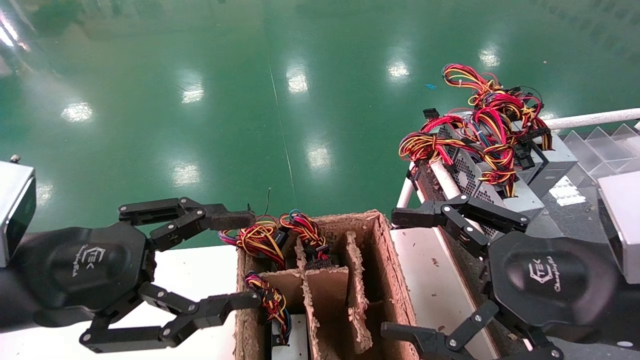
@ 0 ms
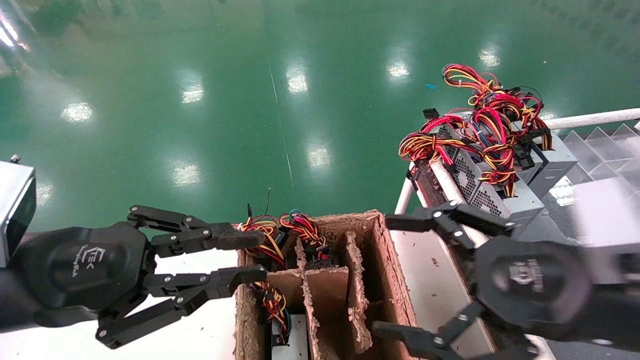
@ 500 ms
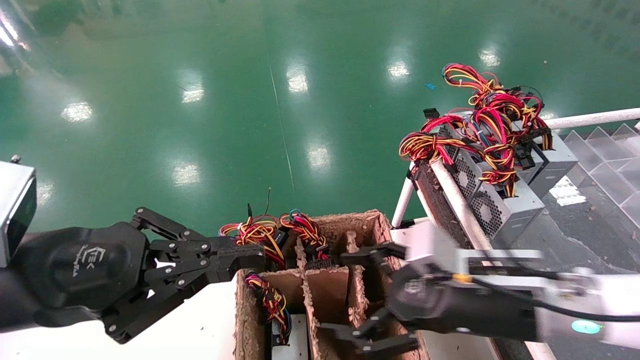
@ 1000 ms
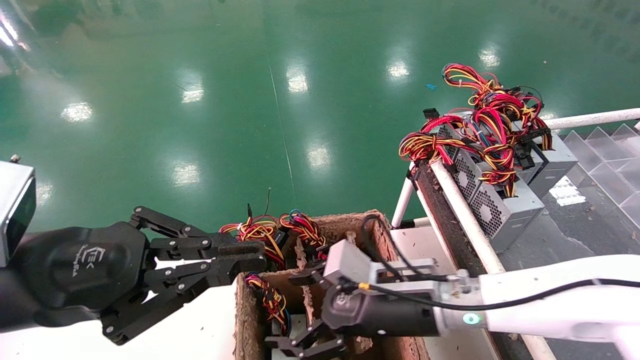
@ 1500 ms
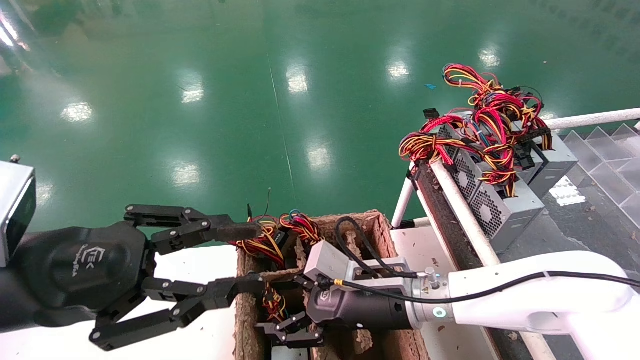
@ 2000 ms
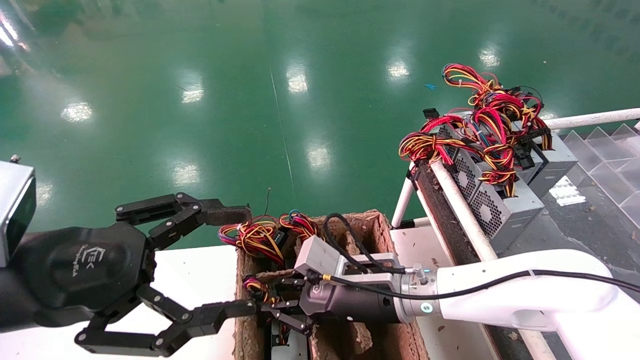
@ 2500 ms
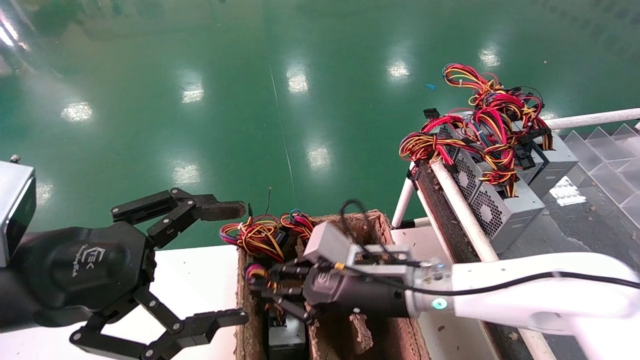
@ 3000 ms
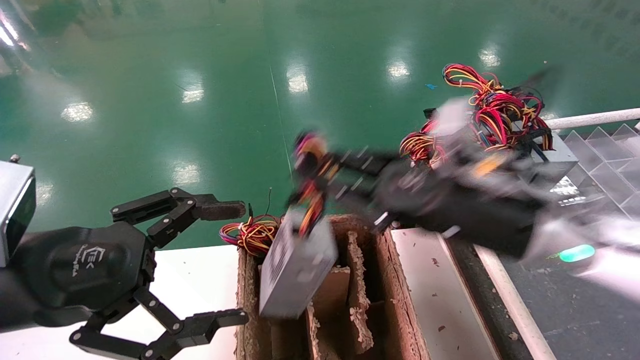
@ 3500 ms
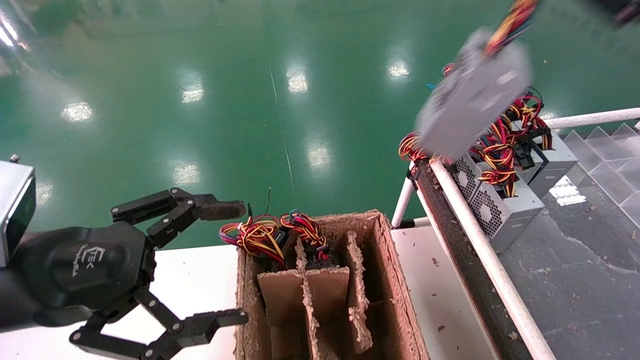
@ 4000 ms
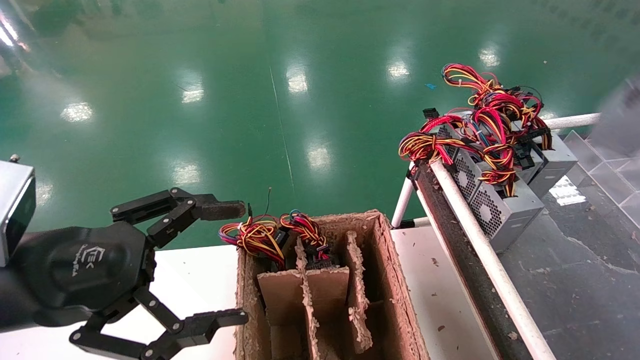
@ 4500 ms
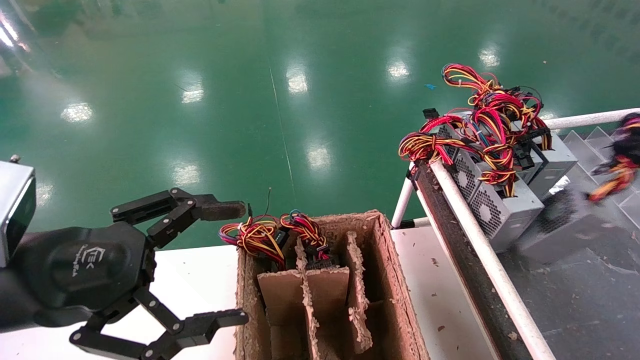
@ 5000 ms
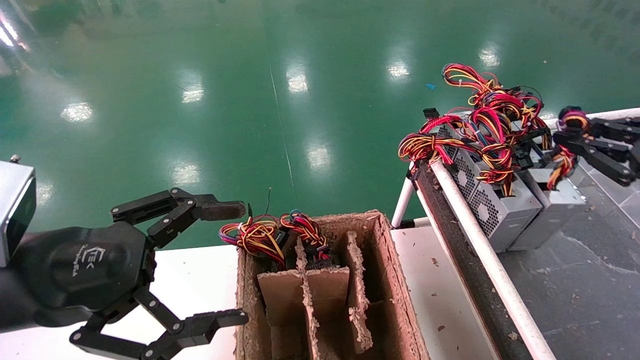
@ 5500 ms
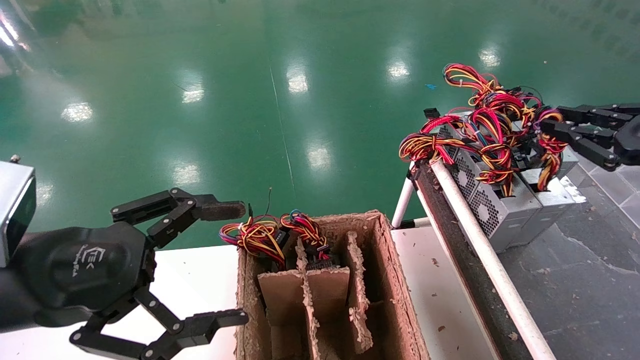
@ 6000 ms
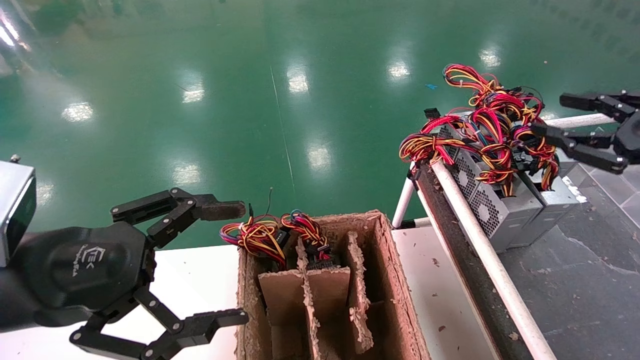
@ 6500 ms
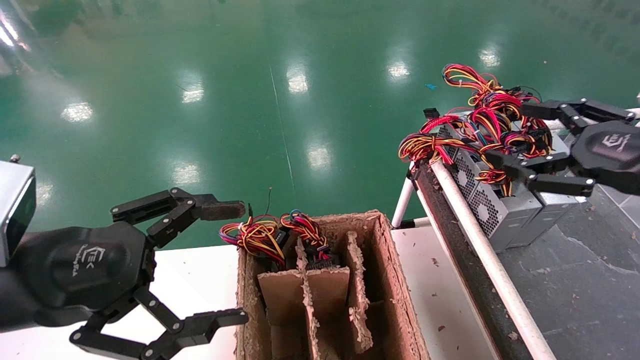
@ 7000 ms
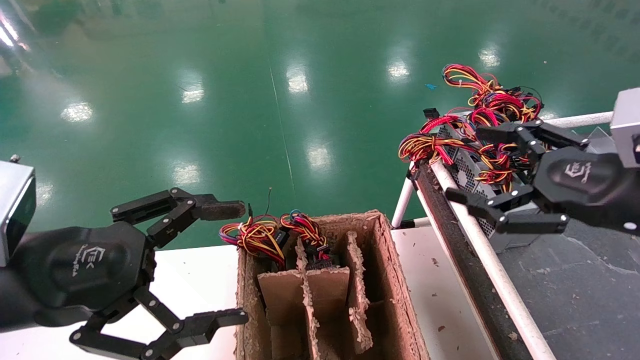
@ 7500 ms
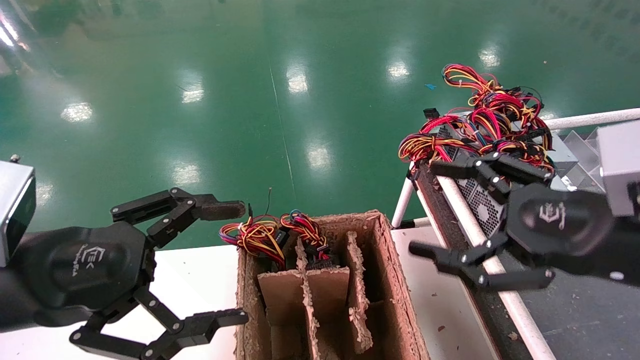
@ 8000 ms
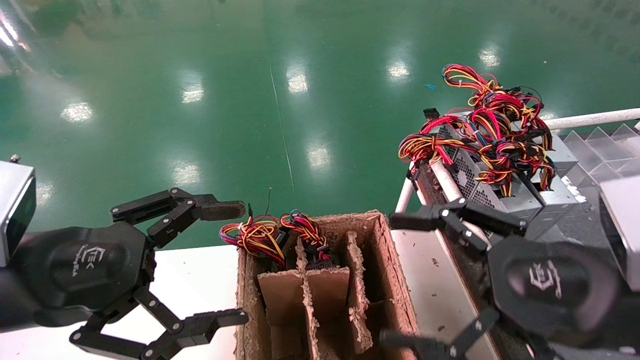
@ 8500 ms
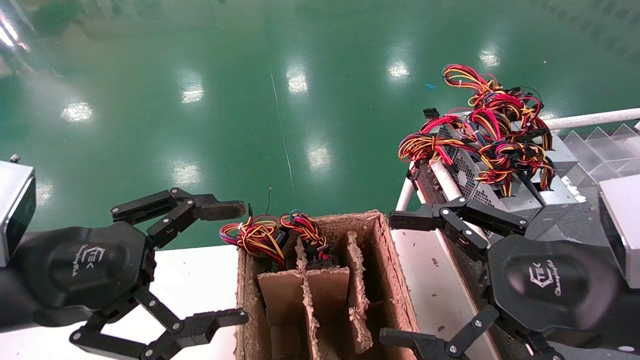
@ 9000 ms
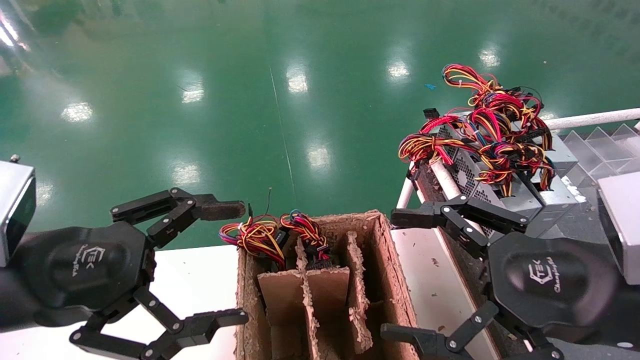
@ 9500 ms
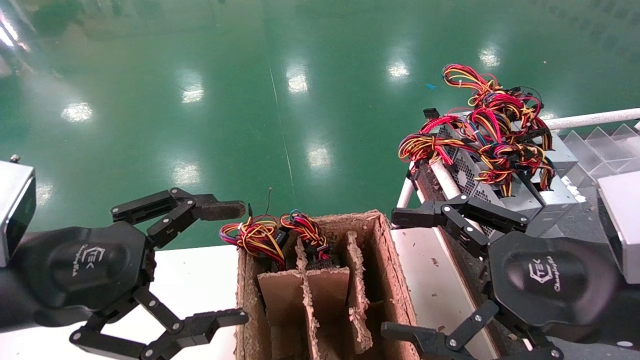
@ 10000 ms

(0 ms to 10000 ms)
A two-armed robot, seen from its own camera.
Step, 1000 ms - 2500 ms: Grab and lift the power supply from the large box.
Step, 3000 ms - 6500 ms: Place the power supply on the operating table.
0 ms - 2000 ms: The right gripper moves to the left, forward and downward, approximately 25 cm, while the left gripper closes its fingers.
2000 ms - 4000 ms: The left gripper opens, while the right gripper is displaced upward, to the right and backward by about 40 cm, and closes up.
4000 ms - 6000 ms: The right gripper moves to the right, downward and forward, approximately 15 cm.
6000 ms - 8000 ms: The right gripper moves to the left and backward, roughly 15 cm, and opens its fingers.
8000 ms - 10000 ms: The grippers stay close to where they were, moving slightly.

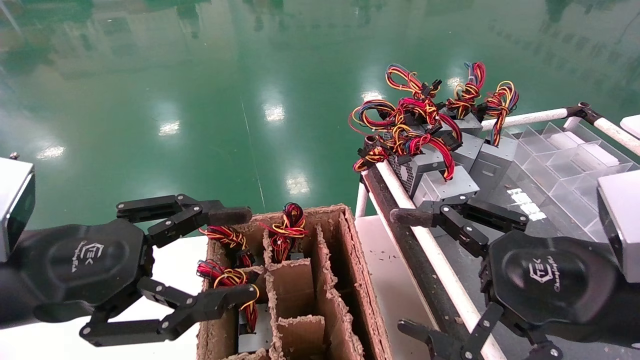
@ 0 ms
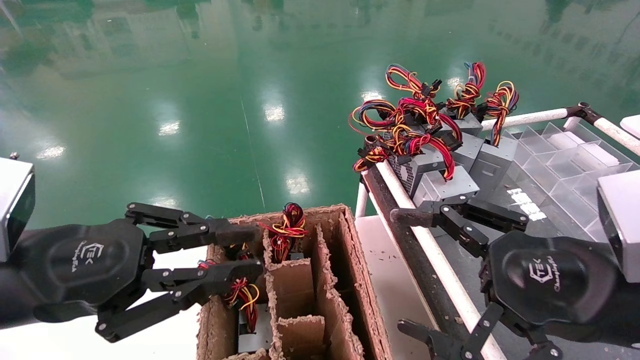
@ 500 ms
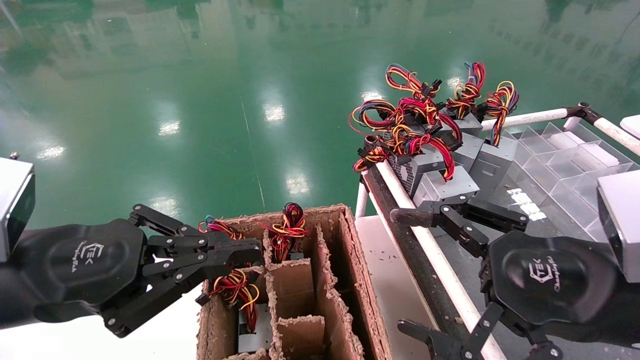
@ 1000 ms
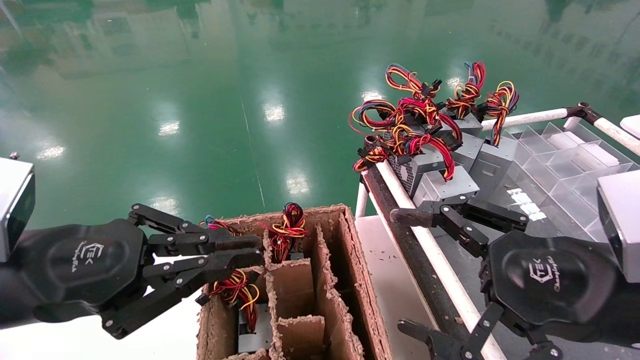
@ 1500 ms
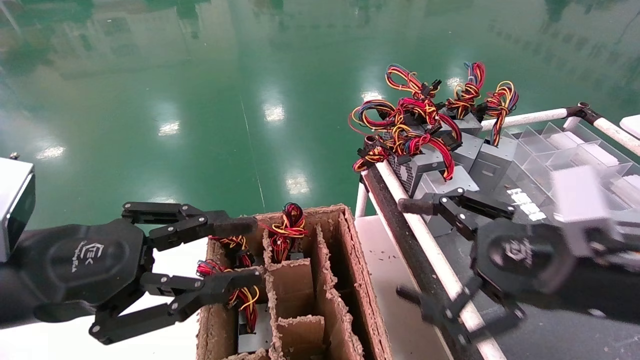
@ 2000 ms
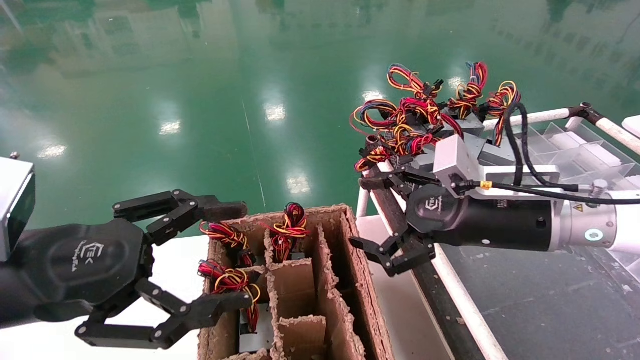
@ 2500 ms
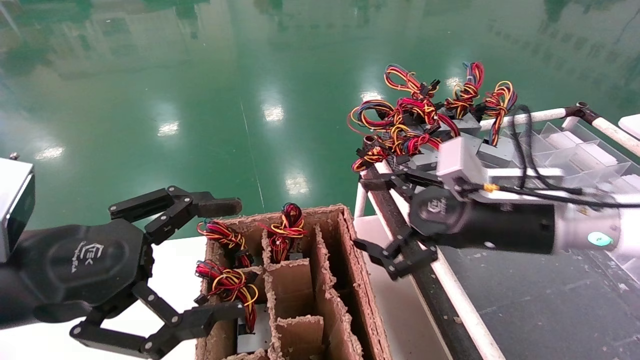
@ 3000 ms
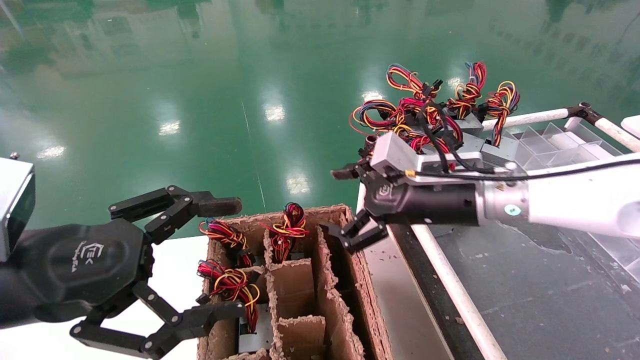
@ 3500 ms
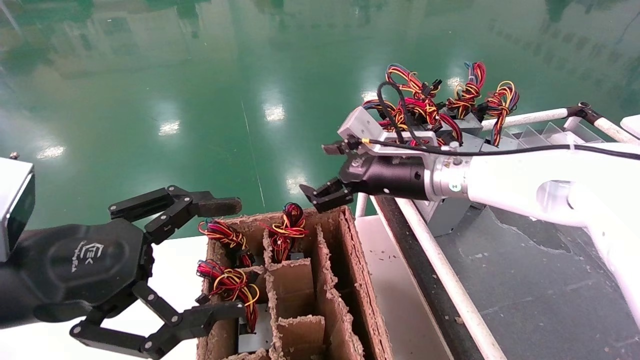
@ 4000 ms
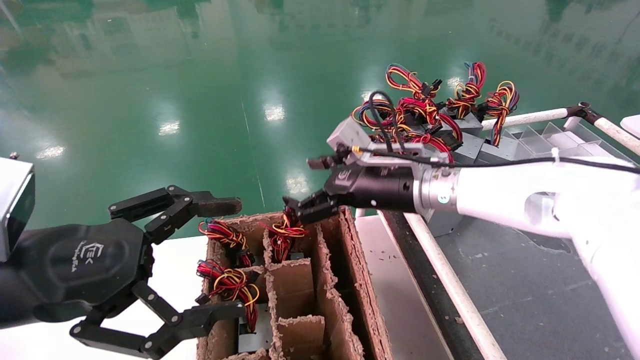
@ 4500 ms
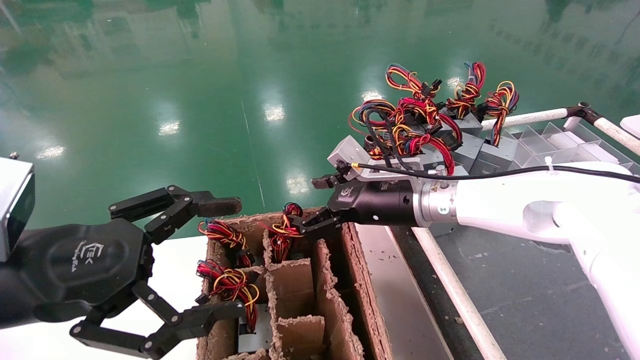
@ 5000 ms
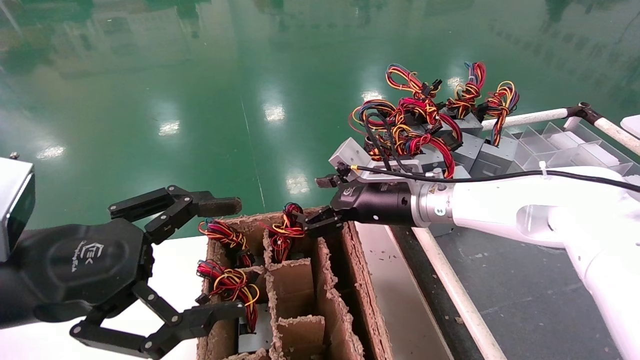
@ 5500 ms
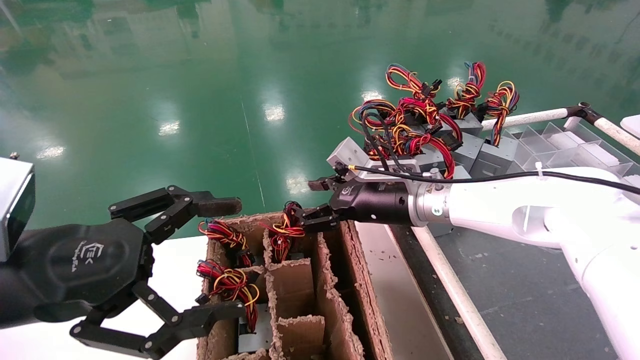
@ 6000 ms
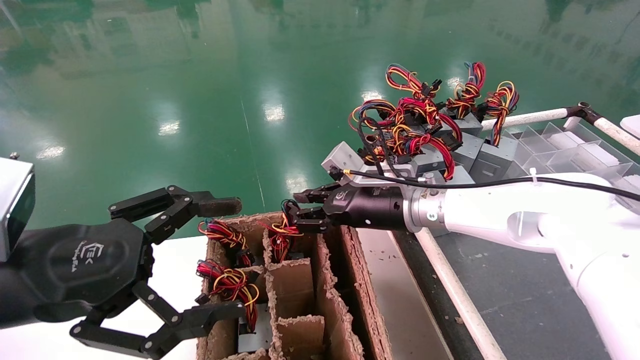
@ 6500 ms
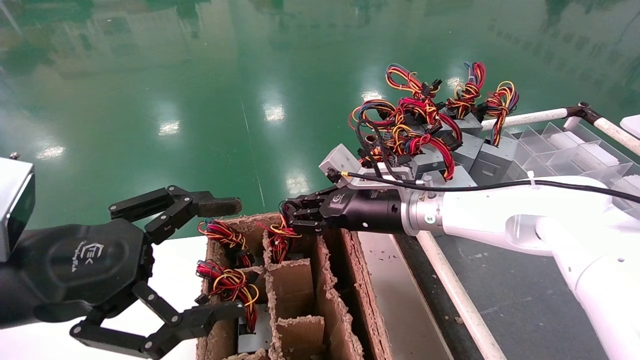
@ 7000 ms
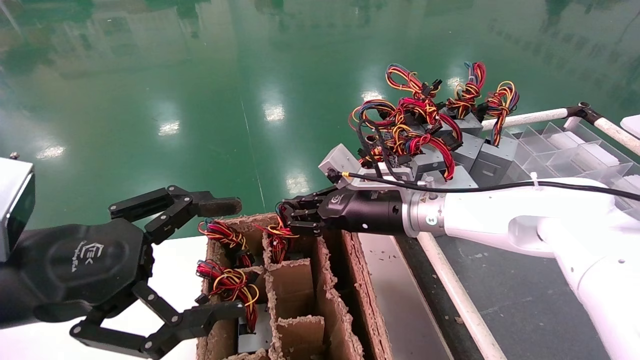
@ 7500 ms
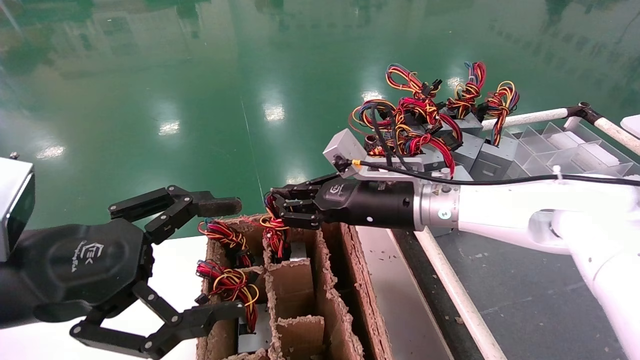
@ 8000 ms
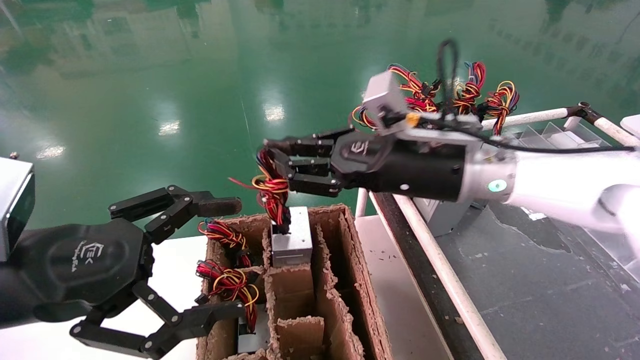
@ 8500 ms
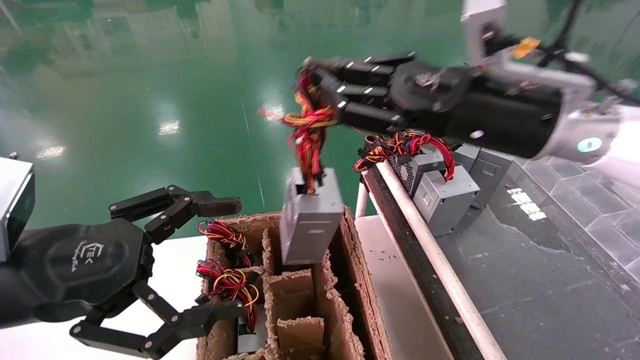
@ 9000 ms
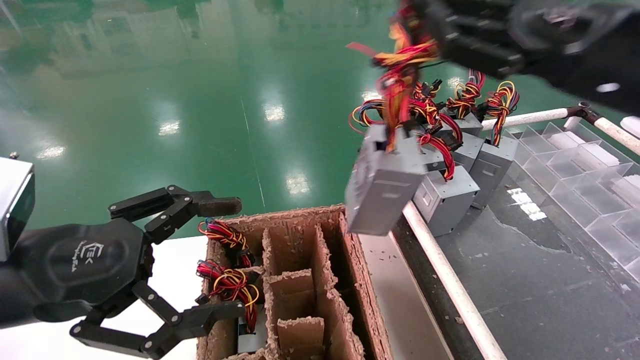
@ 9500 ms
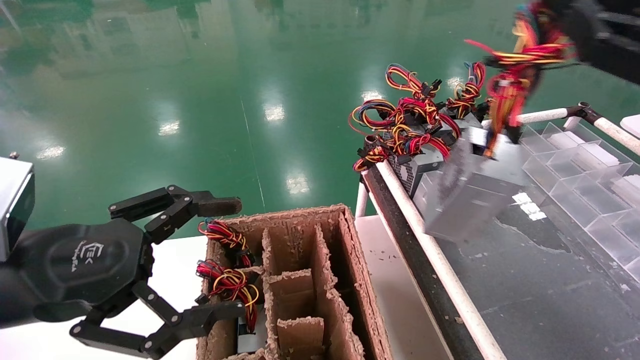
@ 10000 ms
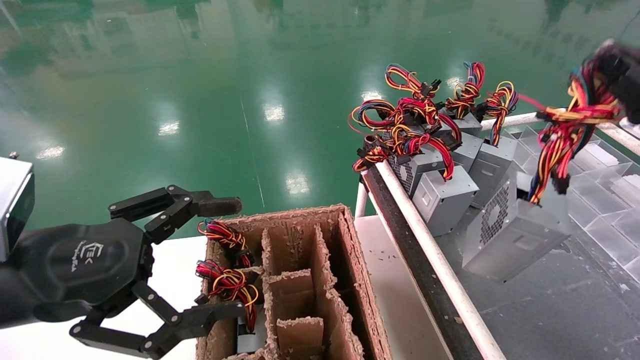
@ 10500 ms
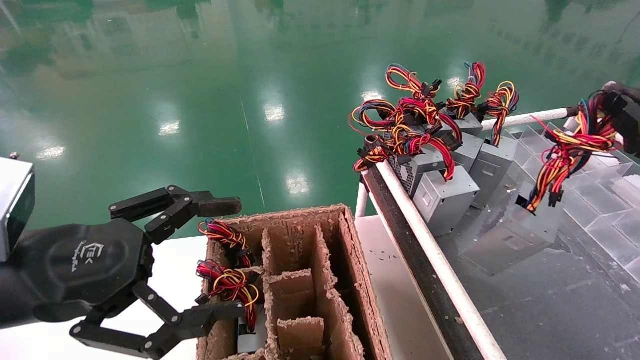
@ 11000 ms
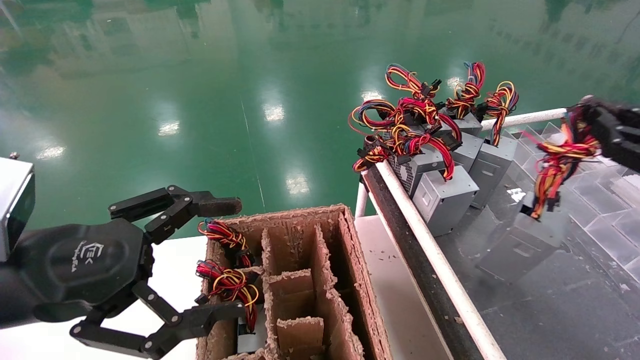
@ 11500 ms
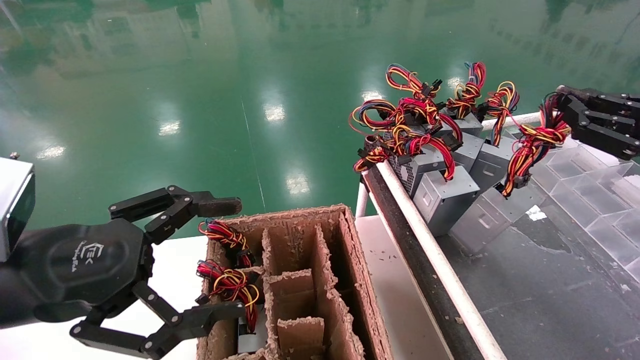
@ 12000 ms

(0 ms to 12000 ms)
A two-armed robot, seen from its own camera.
Step, 1000 ms - 6500 ms: Grab and lift the power supply from the large box.
0 ms - 2000 ms: The right gripper ends up about 5 cm from where it was. Meanwhile the left gripper closes up.
2000 ms - 4000 ms: The right gripper shifts approximately 25 cm forward and to the left; the left gripper opens.
4000 ms - 6000 ms: The grippers move only a little.
6000 ms - 8000 ms: The right gripper closes its fingers.
8000 ms - 10000 ms: The right gripper shifts roughly 35 cm to the right, backward and upward.
10000 ms - 12000 ms: The right gripper shifts about 10 cm to the right and downward.
